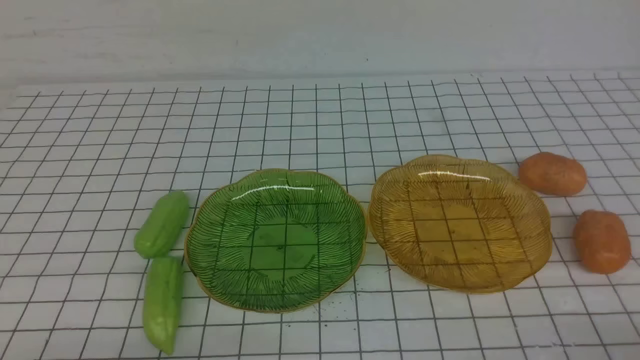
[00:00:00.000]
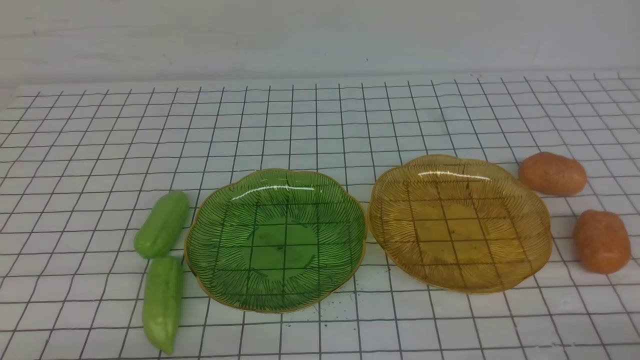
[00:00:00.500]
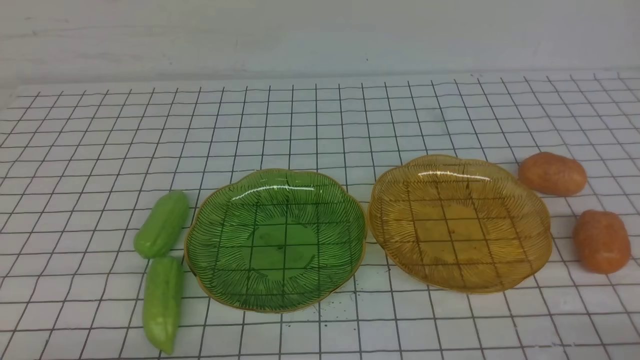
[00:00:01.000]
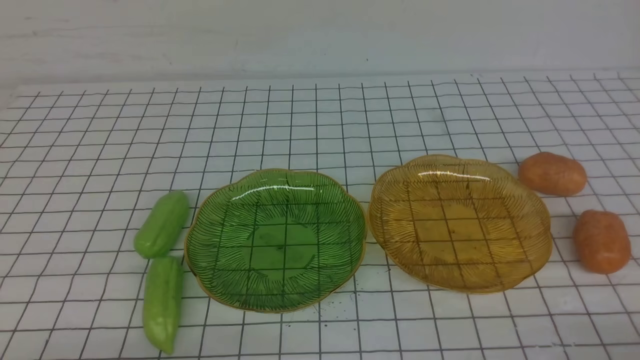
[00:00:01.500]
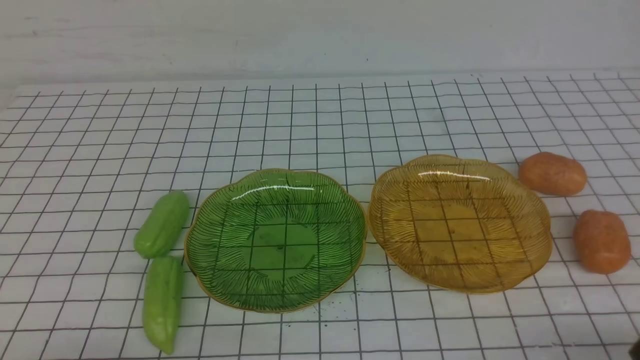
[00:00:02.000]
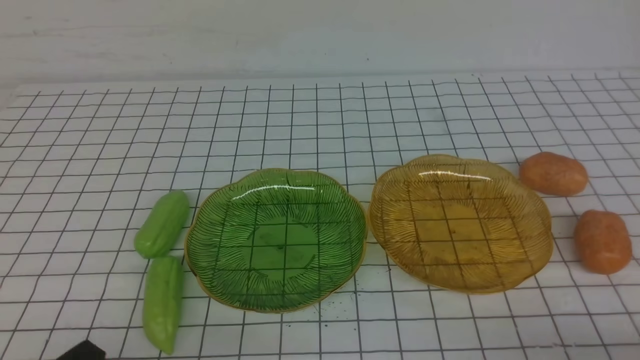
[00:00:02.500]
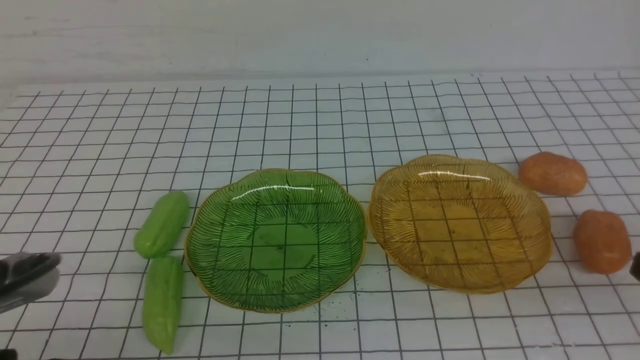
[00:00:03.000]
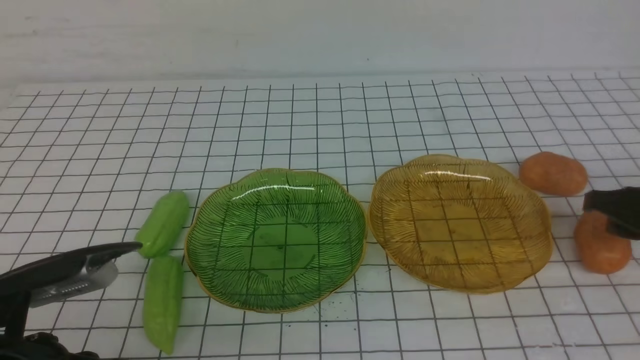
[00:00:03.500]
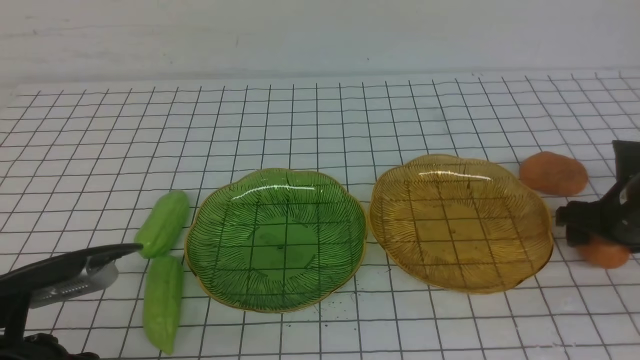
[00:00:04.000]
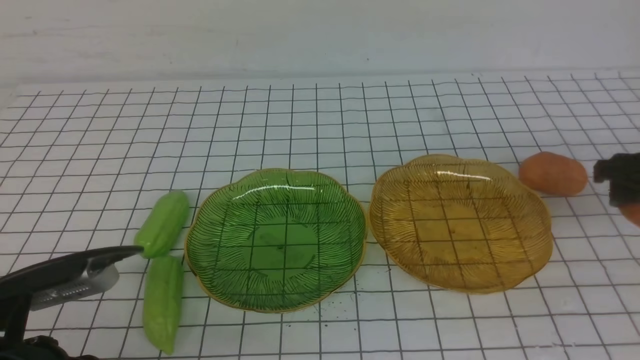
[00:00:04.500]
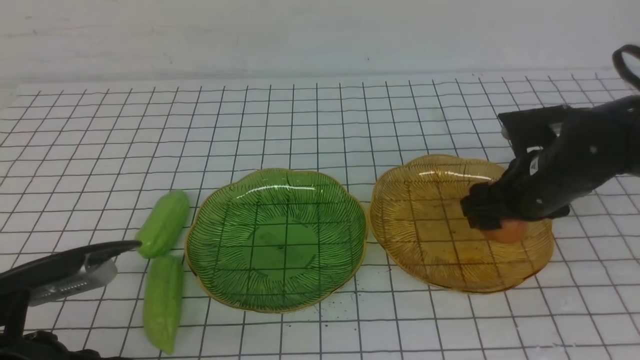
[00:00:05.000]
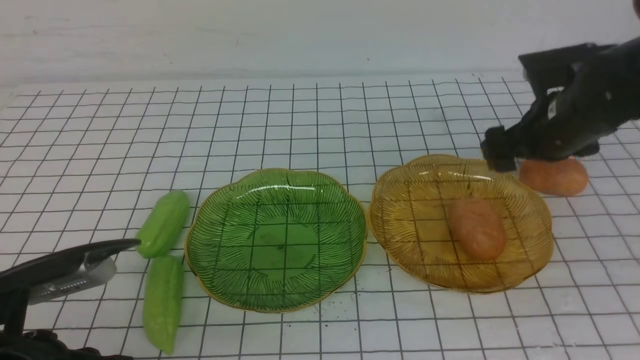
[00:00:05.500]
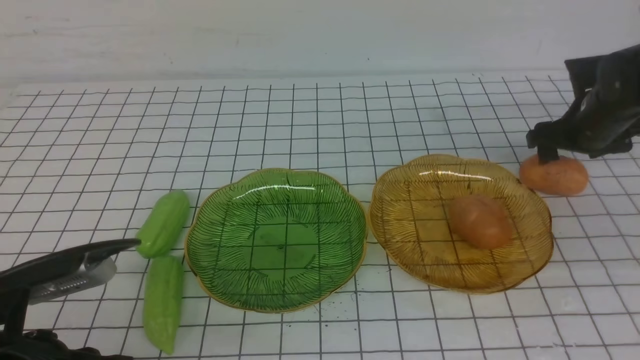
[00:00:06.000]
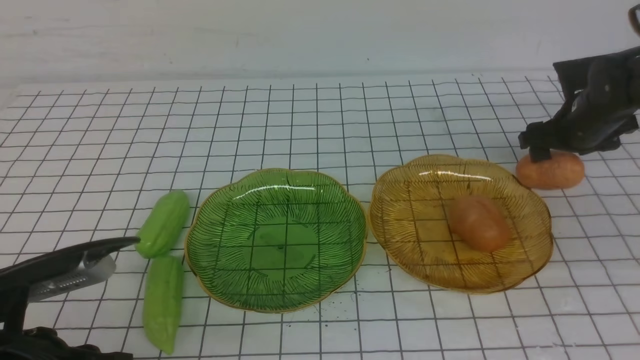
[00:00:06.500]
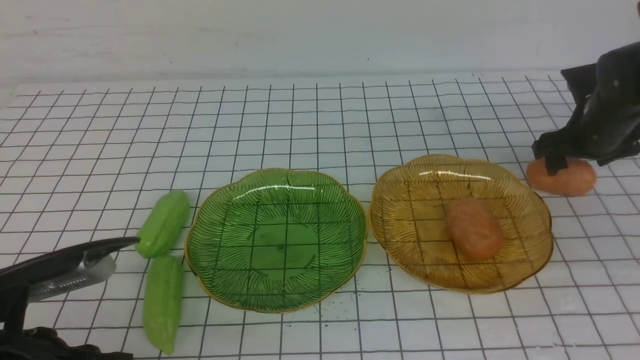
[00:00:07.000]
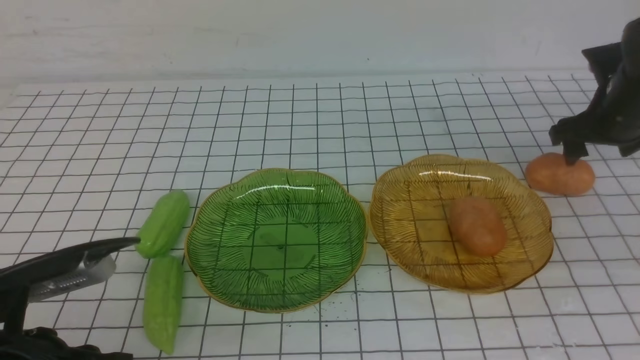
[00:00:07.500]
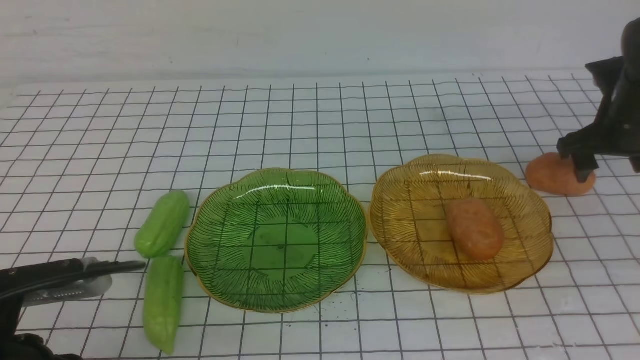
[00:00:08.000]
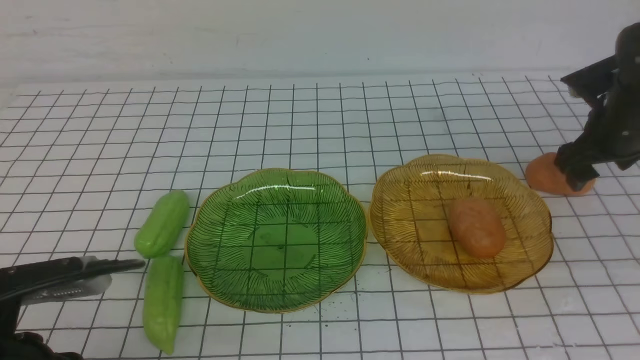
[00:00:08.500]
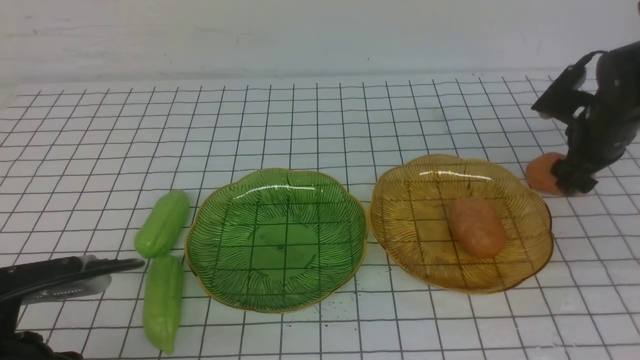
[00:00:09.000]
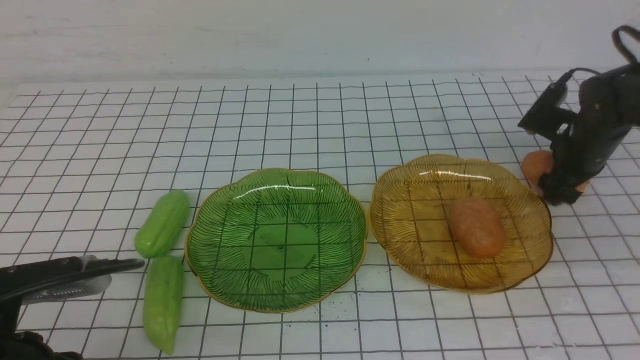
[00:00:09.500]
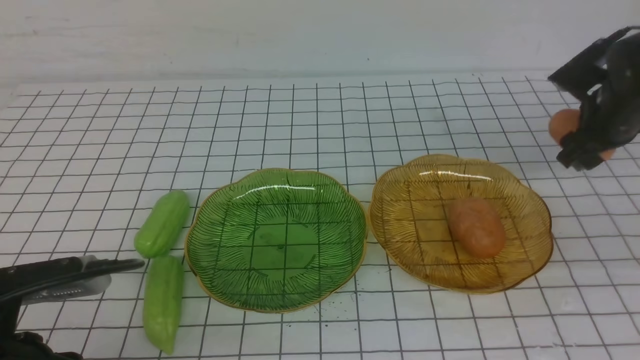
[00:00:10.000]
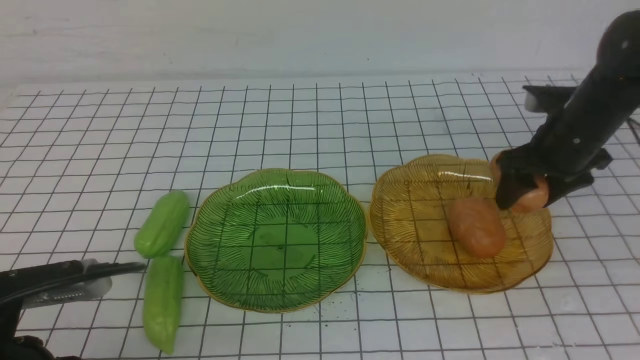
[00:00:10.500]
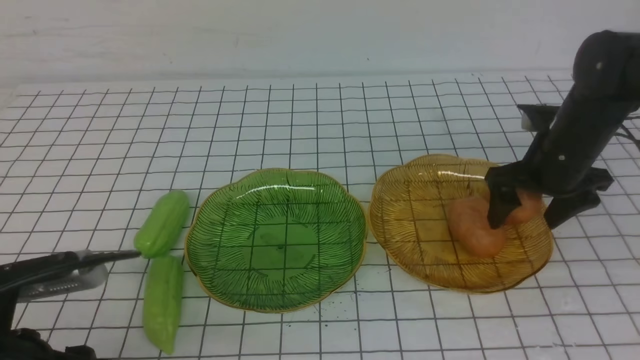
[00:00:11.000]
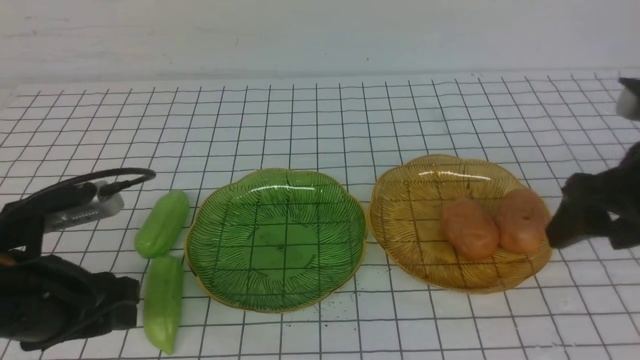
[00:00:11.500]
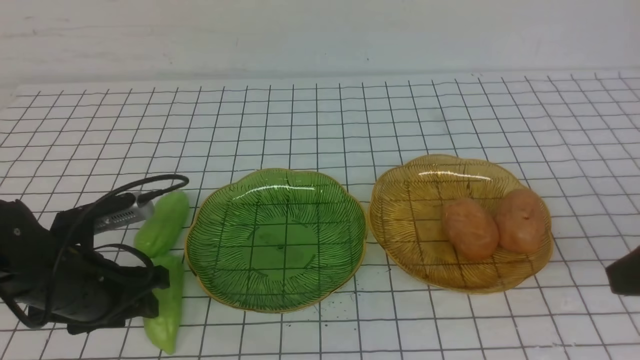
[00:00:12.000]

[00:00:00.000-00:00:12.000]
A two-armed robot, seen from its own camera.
Step, 00:00:00.000 to 00:00:11.000: Grab a potato with your right arm and put it on the right plate.
00:00:02.000 to 00:00:04.000: The left gripper heads forward and upward, covering some 10 cm. The right gripper moves forward, approximately 30 cm, and opens.
00:00:04.000 to 00:00:06.000: The right gripper shifts approximately 10 cm forward.
00:00:06.000 to 00:00:08.000: The right gripper shifts by roughly 5 cm.
00:00:10.000 to 00:00:12.000: The left gripper travels forward by about 10 cm, and opens its fingers. Meanwhile the right gripper shifts some 30 cm backward and upward.

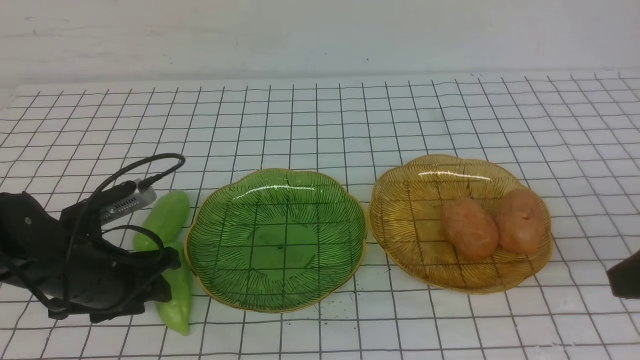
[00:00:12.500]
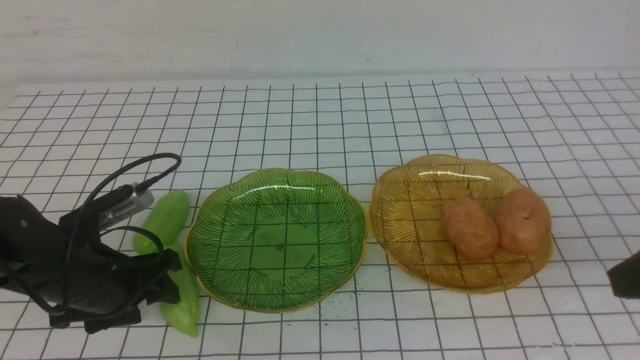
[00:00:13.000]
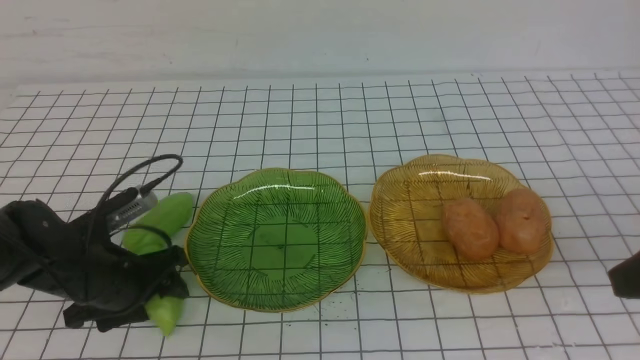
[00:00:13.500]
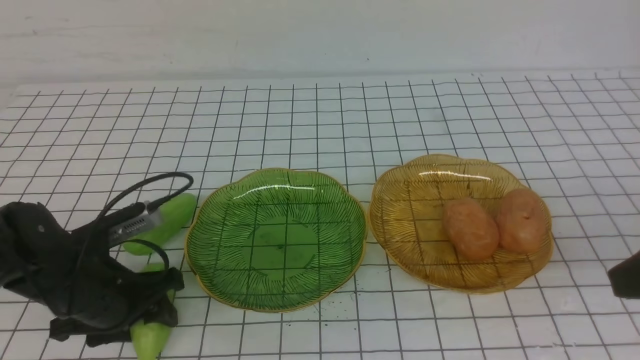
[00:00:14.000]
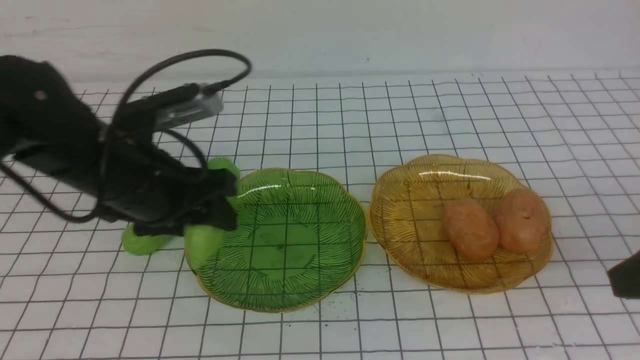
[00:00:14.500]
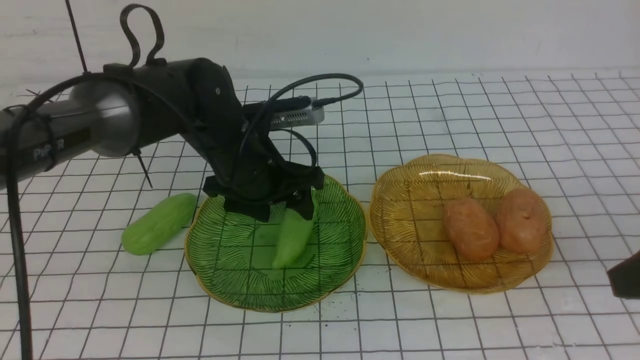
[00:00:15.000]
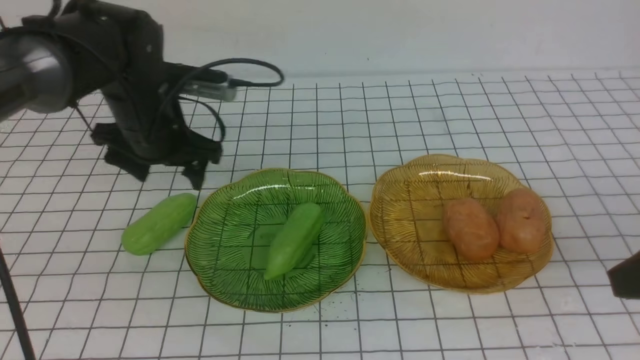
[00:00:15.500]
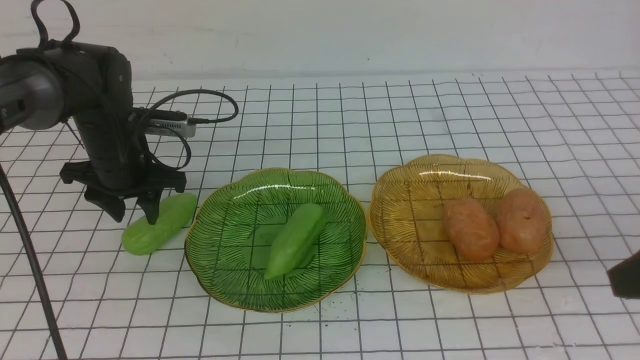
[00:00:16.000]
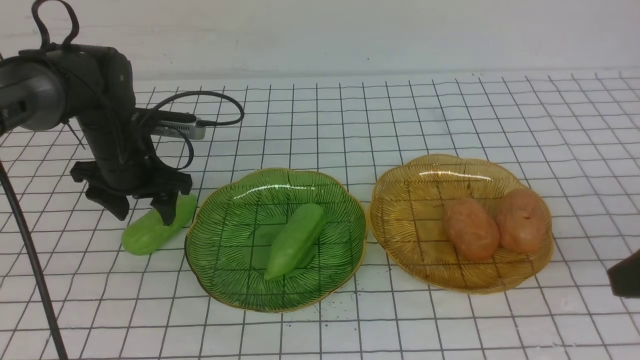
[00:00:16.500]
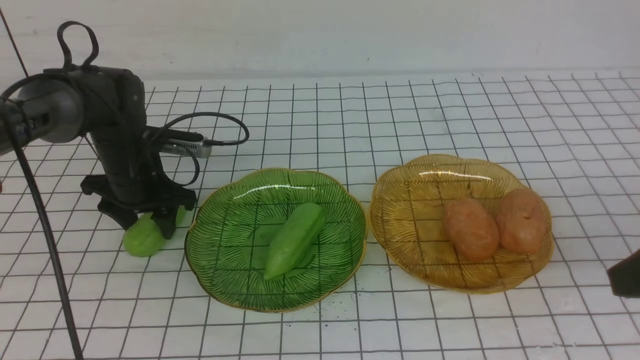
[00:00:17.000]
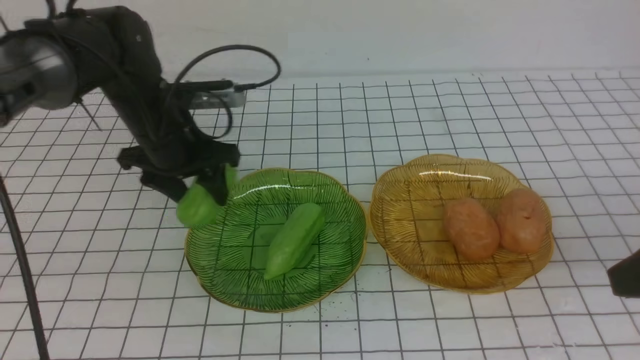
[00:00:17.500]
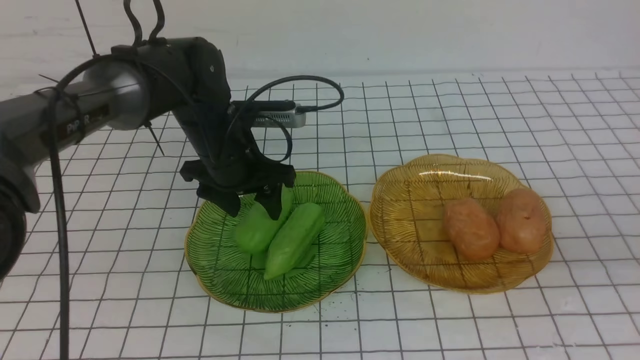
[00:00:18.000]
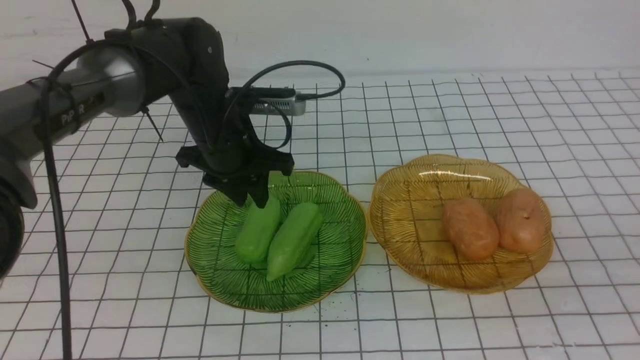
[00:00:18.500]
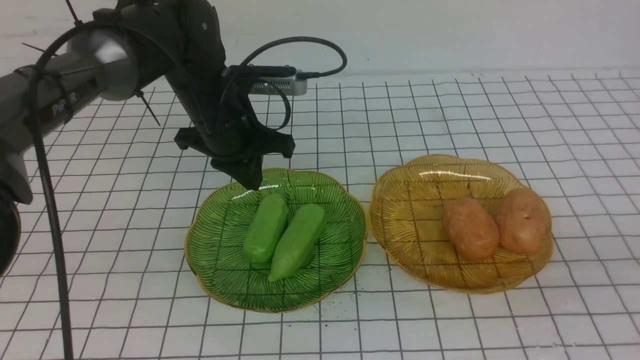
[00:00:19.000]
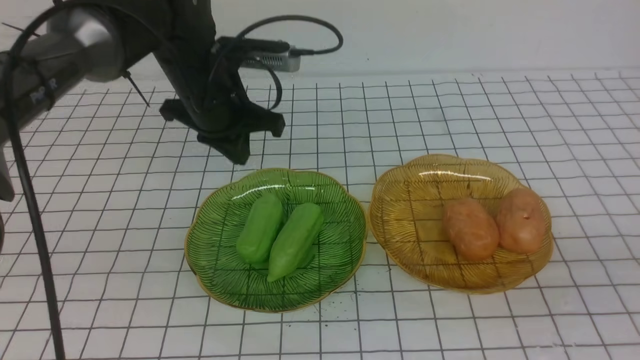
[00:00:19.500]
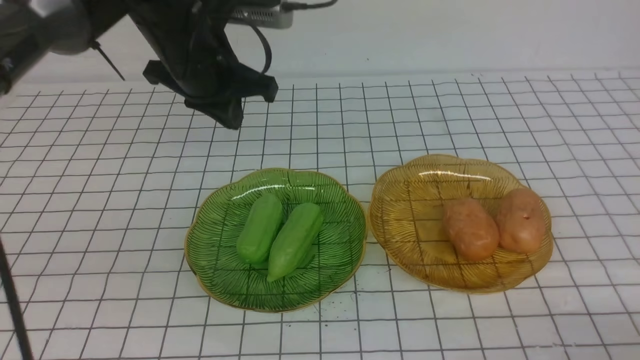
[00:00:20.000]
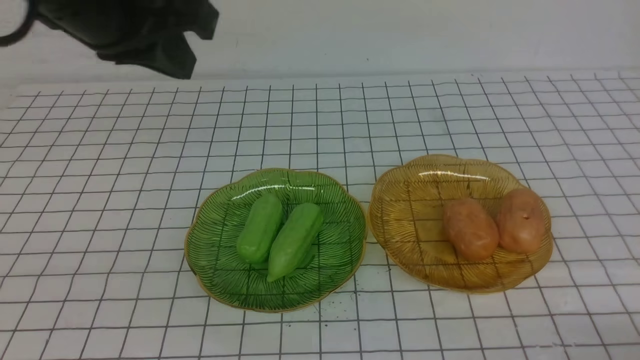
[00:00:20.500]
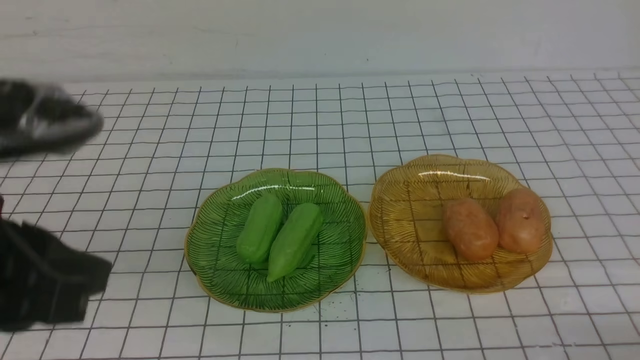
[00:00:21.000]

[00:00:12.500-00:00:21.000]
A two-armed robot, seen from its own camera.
Step, 00:00:12.500 to 00:00:18.000: use the left arm to grab a chayote and put it into the left plate.
00:00:12.500 to 00:00:14.500: The left gripper goes about 10 cm upward and to the right.
00:00:14.500 to 00:00:16.500: The left gripper is displaced forward, to the left and downward by roughly 15 cm.
00:00:16.500 to 00:00:19.000: The left gripper travels to the right and upward by roughly 15 cm, and closes; the right gripper travels backward by some 10 cm, and closes up.
00:00:19.000 to 00:00:21.000: The left gripper shifts approximately 30 cm backward. The right gripper heads downward, covering some 15 cm.
